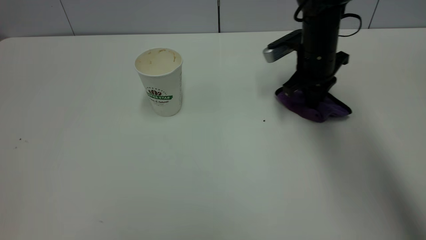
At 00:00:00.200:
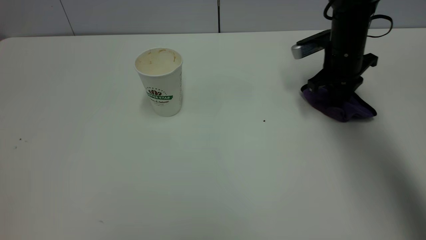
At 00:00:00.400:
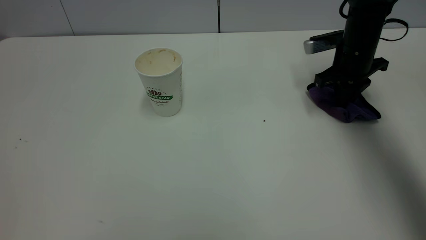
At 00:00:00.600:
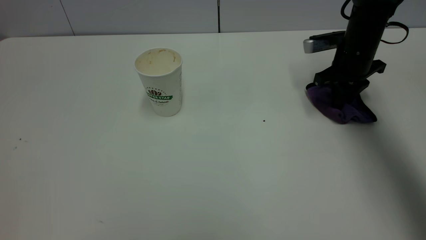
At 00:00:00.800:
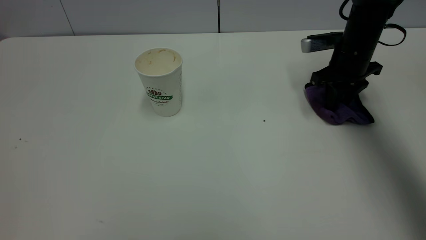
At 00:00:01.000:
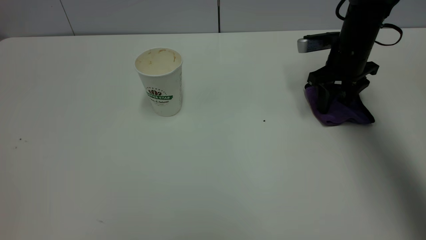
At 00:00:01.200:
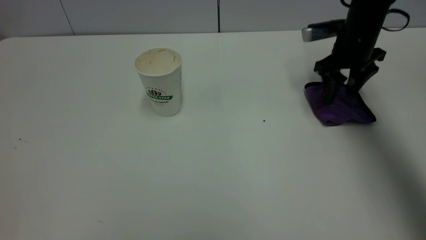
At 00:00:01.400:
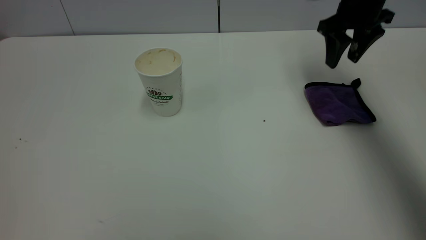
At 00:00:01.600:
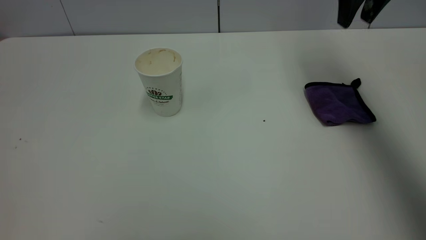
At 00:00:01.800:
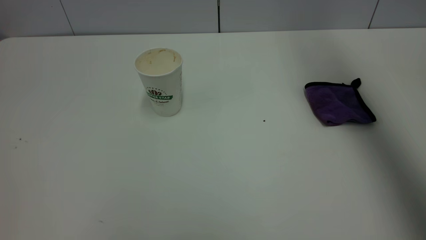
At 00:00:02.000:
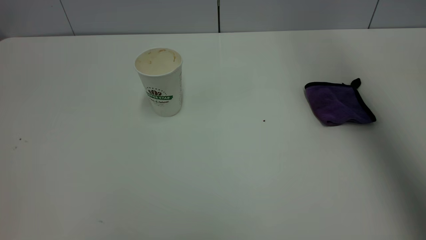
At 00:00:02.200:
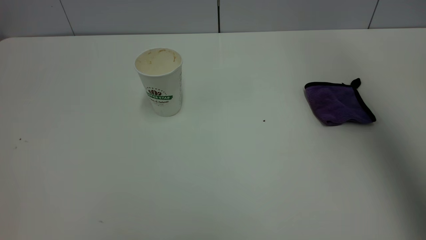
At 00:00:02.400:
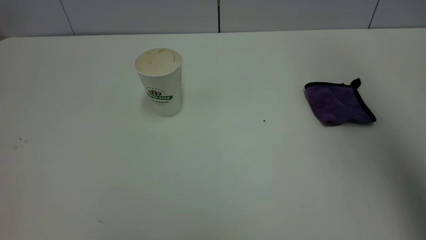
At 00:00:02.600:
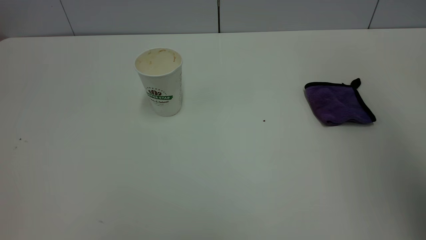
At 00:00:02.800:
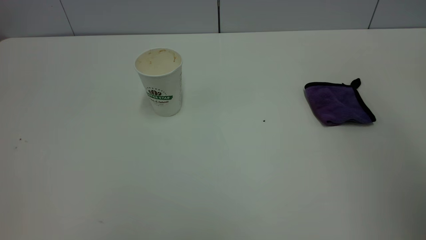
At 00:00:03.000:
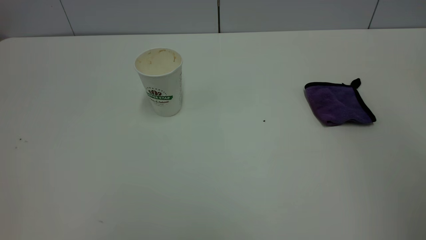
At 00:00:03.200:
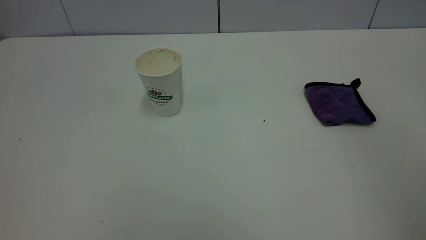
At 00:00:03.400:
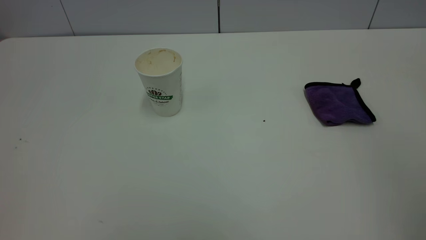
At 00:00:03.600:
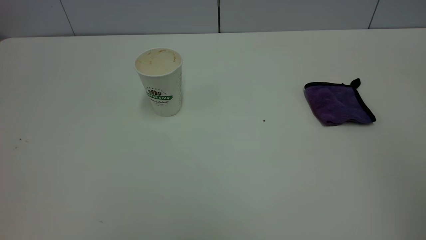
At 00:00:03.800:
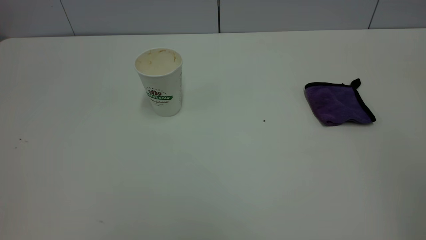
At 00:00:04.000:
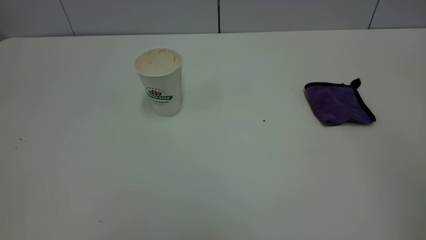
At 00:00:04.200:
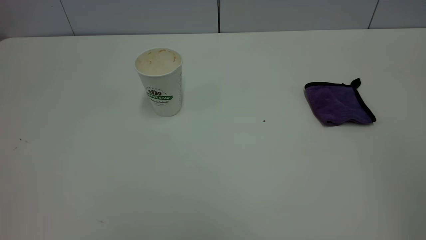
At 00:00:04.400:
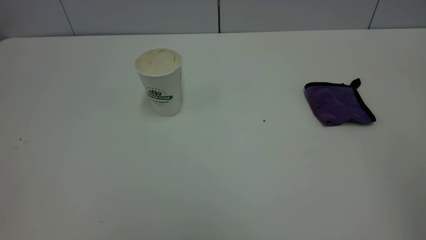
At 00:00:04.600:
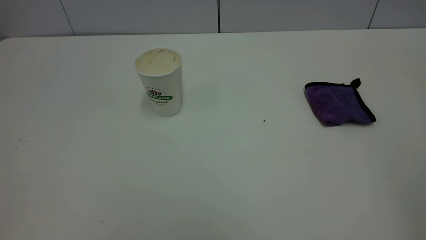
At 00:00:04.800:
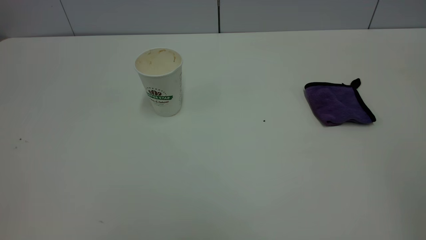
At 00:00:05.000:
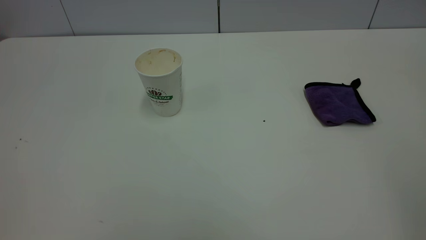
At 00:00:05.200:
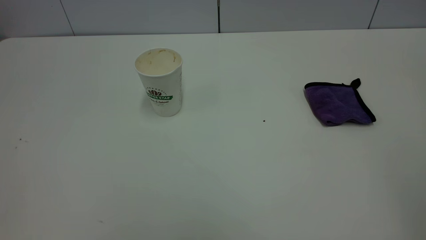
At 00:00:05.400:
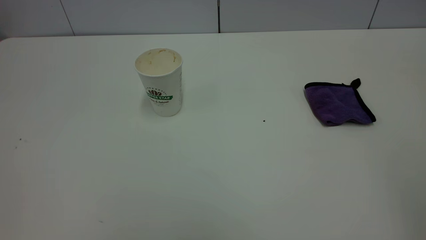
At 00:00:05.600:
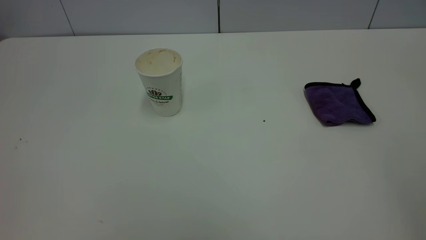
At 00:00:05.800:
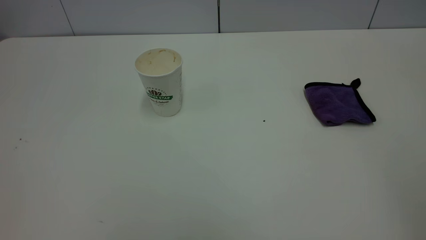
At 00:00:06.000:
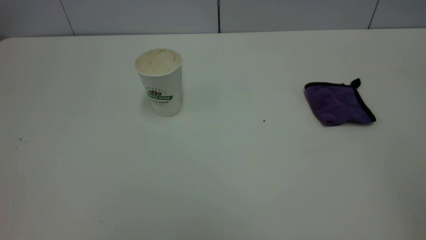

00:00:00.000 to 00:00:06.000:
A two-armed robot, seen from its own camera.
Task of the whole recording: the left gripper pick up the fallen cup and place it upright, the right gripper grasp the purple rag and wipe the tea stain on the table, the right gripper put the purple rag back in its original position.
00:00:00.000 to 00:00:01.600: The right gripper moves upward, some 20 cm, and opens its fingers.
00:00:01.600 to 00:00:03.000: The right gripper moves backward, about 35 cm.
00:00:04.400 to 00:00:06.000: Neither gripper changes place.
